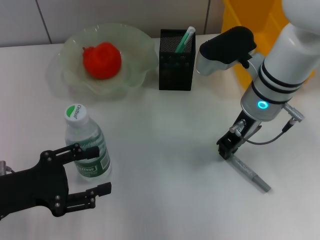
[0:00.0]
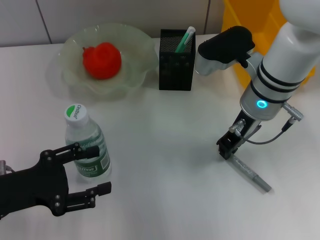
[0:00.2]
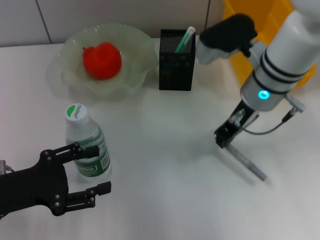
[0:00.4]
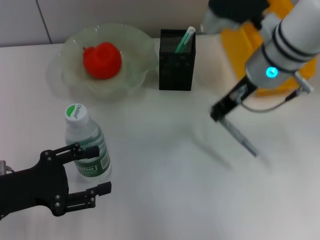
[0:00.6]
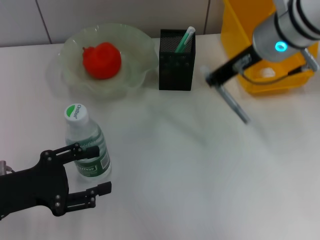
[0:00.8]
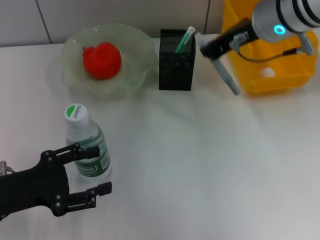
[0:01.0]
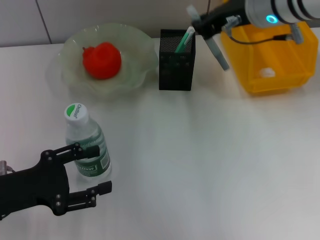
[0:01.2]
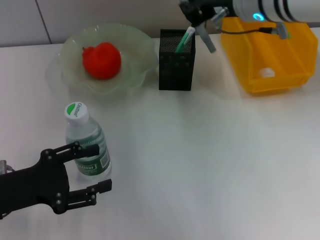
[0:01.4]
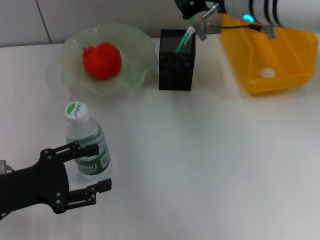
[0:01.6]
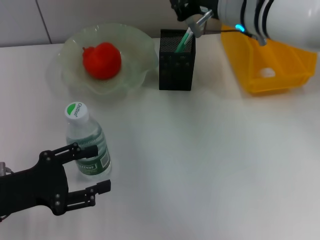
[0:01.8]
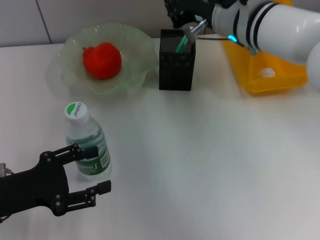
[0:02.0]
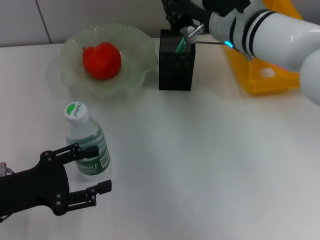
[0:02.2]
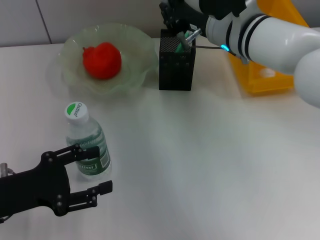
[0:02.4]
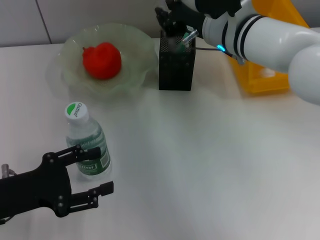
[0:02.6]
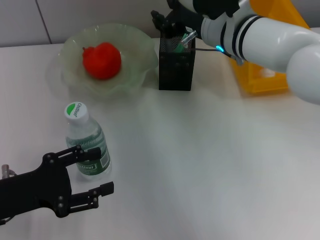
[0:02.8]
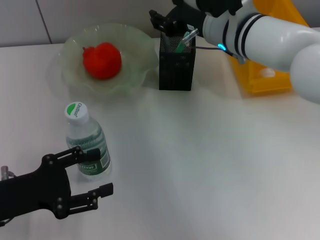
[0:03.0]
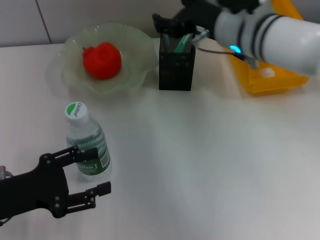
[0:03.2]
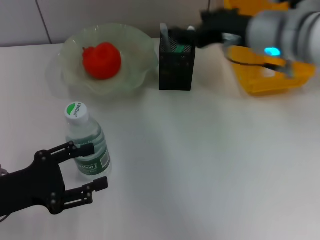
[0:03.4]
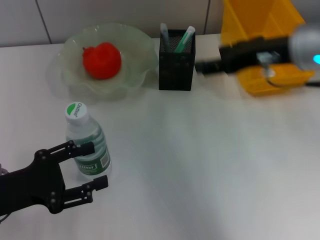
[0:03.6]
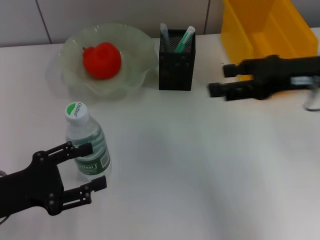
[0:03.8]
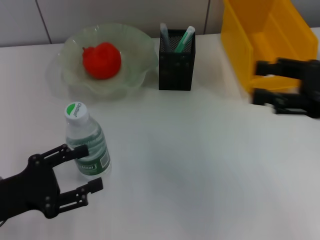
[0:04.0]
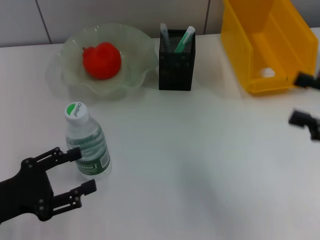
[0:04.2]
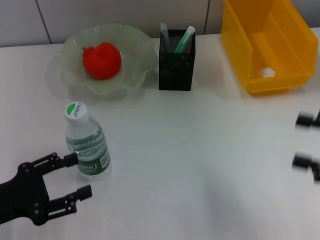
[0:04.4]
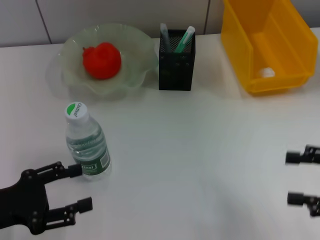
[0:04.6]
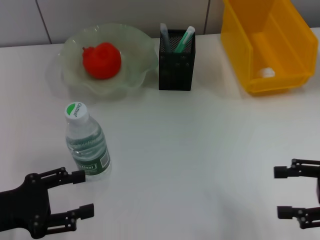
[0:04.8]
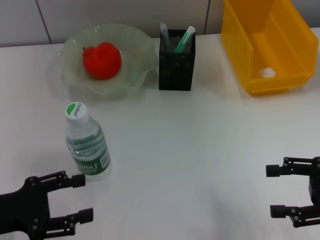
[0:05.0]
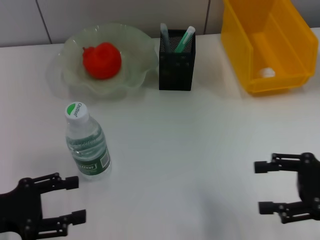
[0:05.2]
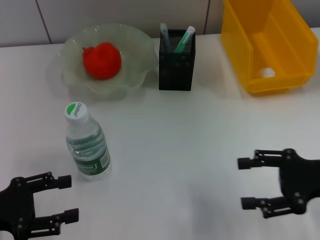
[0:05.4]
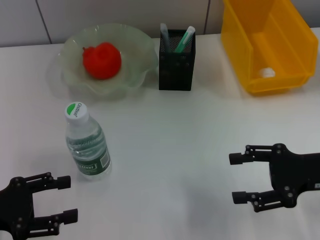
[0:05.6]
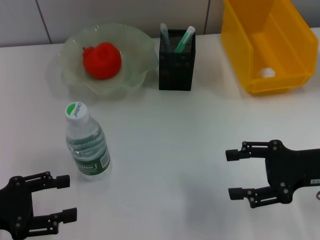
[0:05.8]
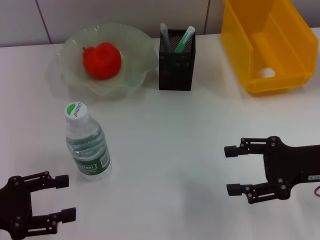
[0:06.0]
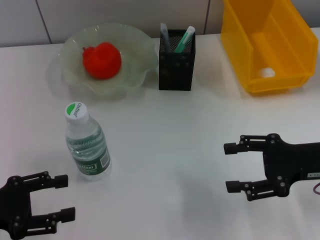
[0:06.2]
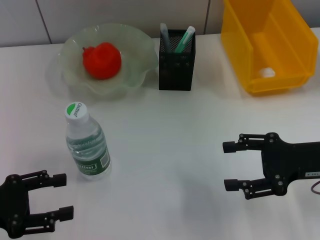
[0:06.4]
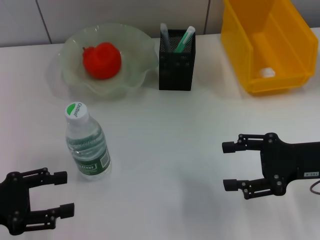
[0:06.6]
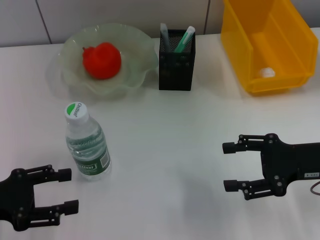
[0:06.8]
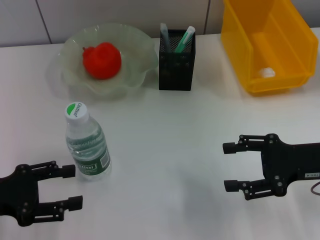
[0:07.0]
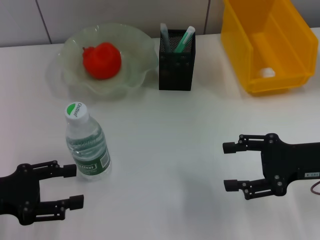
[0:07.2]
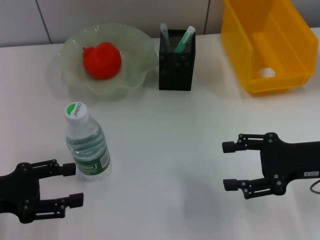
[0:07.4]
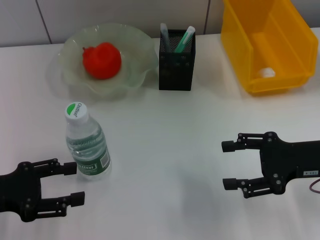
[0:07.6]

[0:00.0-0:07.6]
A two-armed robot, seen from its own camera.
Step, 0.4 to 3.4 s: Place the gray glue into the pen holder with the right hand.
0.0 to 1.6 s: The right gripper shifts approximately 10 cm upward.
1.6 to 3.0 s: The right gripper shifts approximately 5 cm downward, and opens its fingers.
3.0 to 4.6 s: The right gripper travels to the right and backward by some 30 cm, and opens up.
4.6 to 6.0 s: The right gripper moves to the left and forward, some 10 cm.
6.0 to 7.6 s: There are only small adjustments of the grippers.

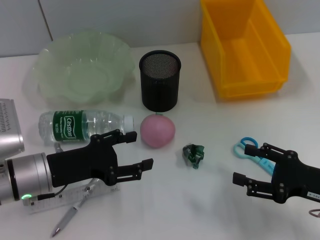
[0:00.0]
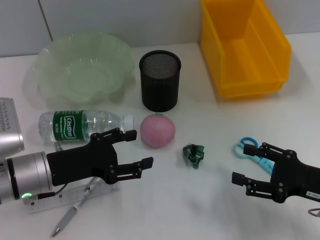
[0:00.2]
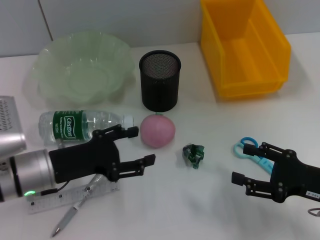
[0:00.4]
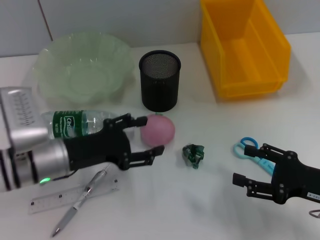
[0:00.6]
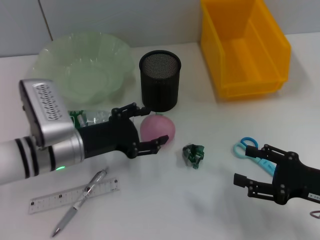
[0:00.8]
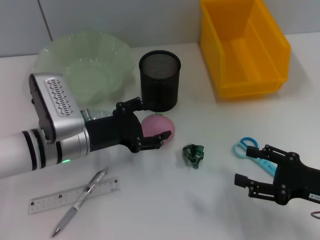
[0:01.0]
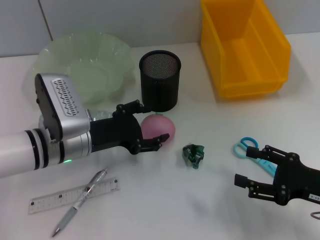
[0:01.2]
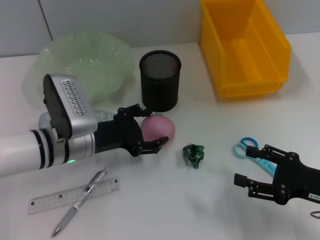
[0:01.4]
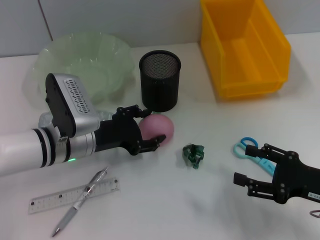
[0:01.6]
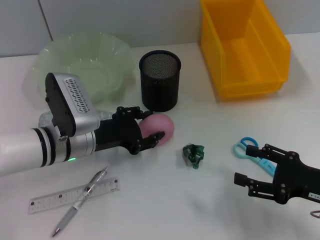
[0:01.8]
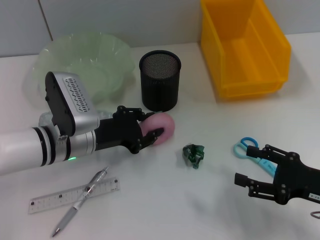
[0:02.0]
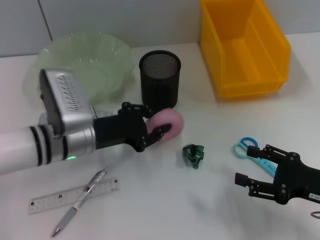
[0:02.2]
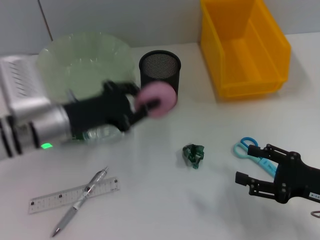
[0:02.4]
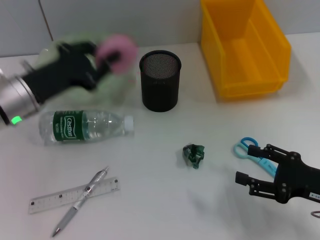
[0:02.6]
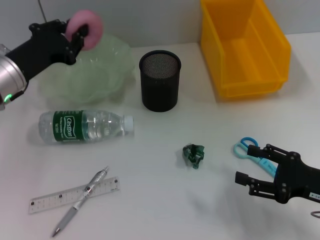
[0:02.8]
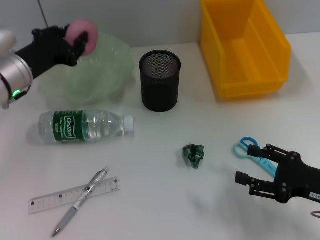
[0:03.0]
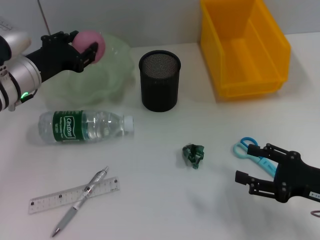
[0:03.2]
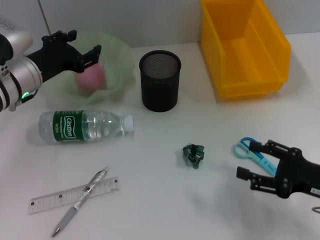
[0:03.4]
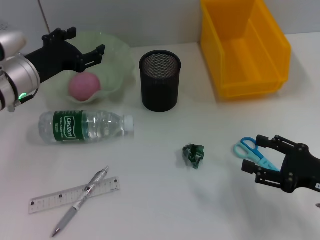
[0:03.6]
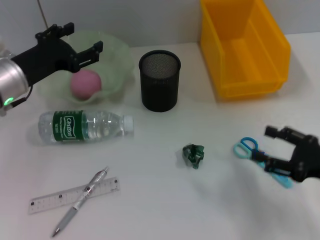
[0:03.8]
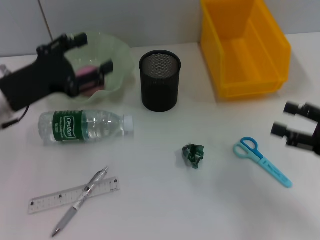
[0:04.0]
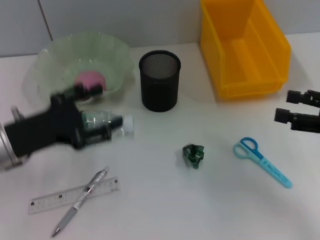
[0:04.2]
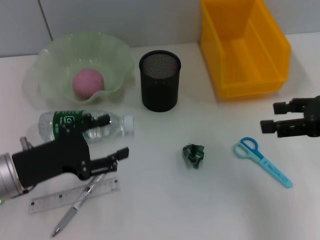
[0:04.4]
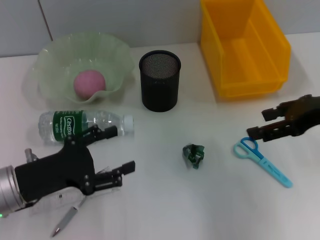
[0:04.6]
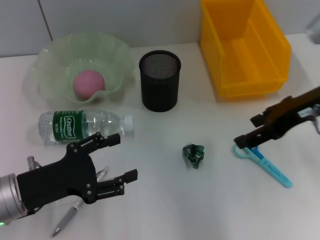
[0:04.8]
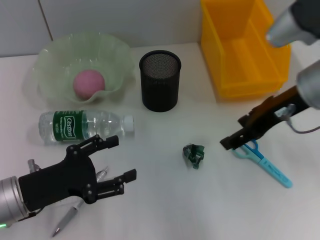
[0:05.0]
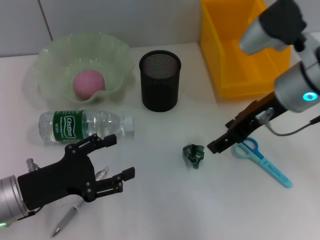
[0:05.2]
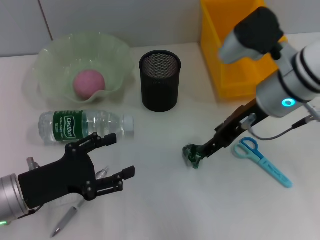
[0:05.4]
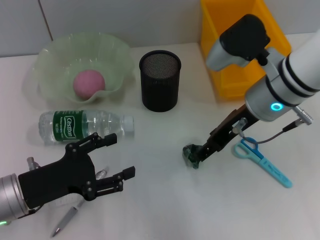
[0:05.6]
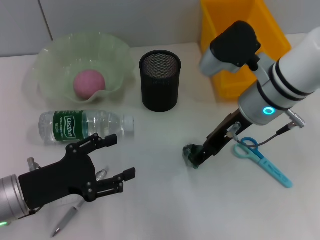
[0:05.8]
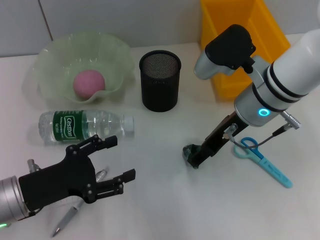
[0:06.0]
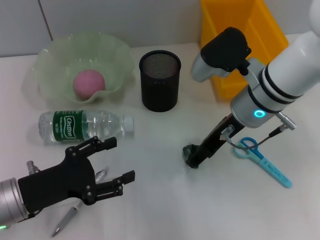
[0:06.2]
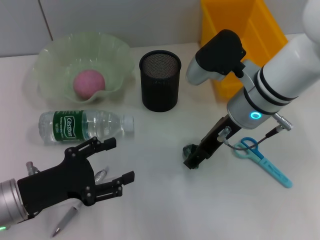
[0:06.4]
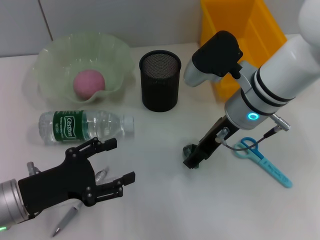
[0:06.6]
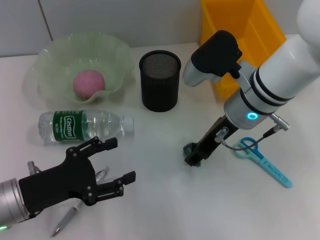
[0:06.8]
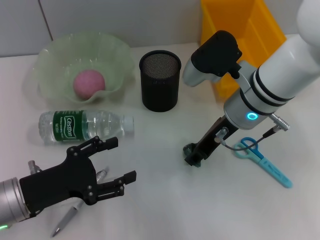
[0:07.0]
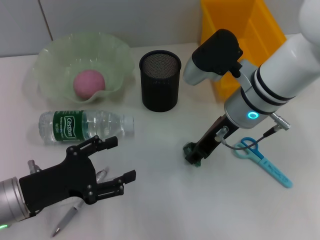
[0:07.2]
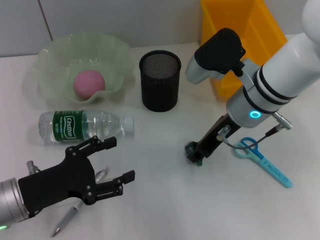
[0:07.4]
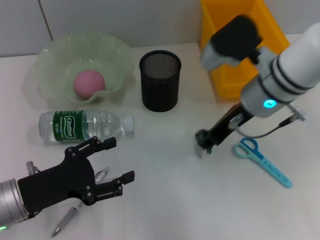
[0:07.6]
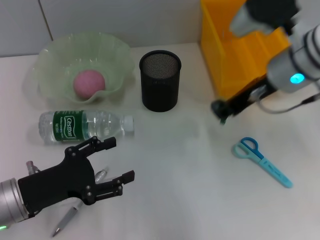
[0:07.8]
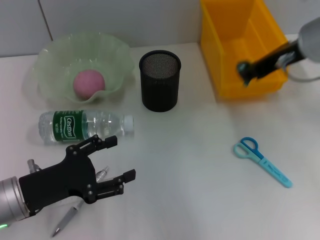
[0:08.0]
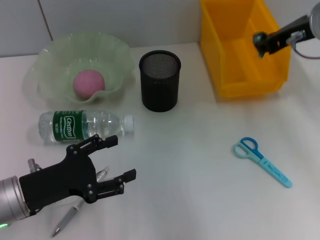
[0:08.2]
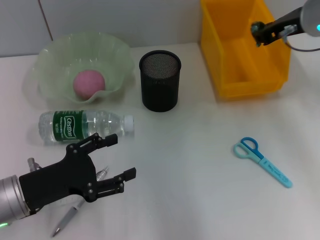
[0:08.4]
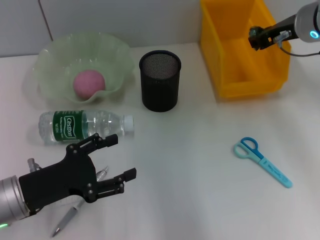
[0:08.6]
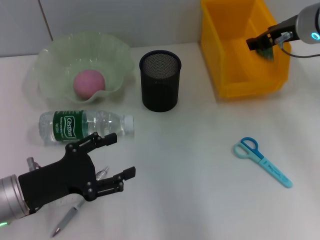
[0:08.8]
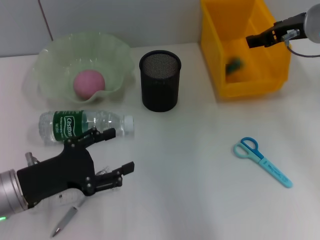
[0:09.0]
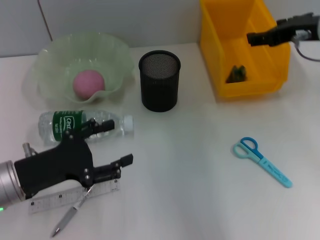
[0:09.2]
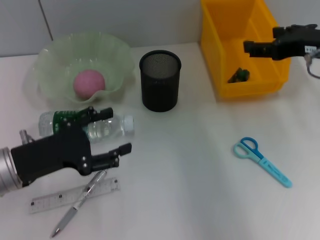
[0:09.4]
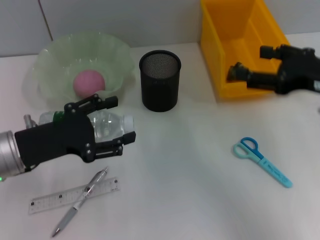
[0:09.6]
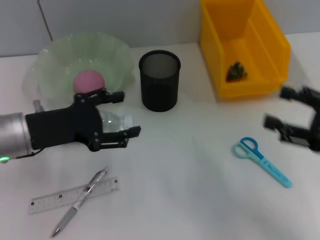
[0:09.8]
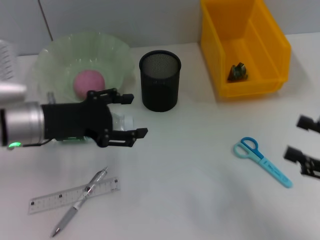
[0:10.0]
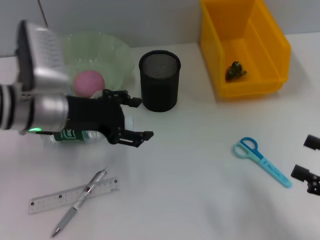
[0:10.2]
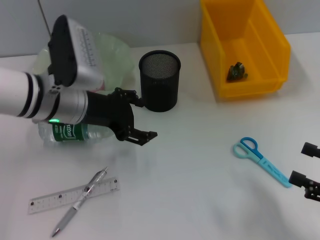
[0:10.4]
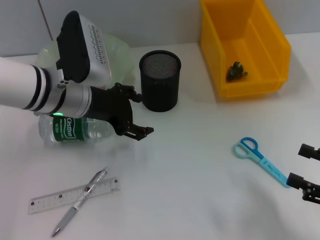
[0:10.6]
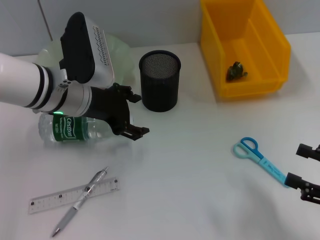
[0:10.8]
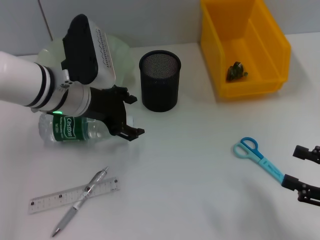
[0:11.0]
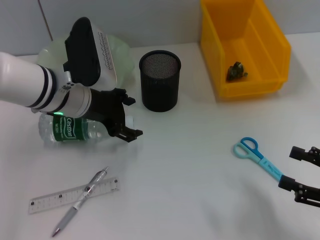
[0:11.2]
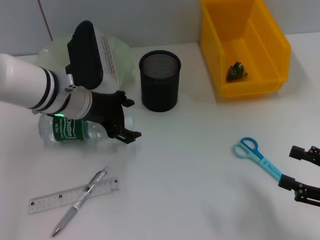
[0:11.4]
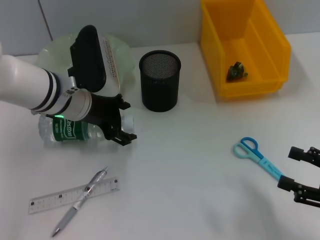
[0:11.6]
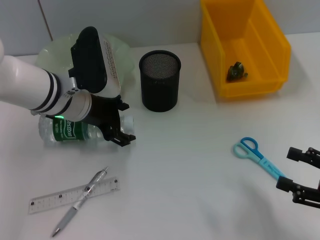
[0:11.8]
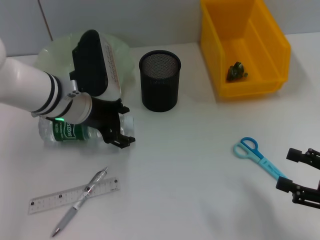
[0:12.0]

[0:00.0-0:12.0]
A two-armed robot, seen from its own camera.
Step, 0.0 to 1.8 s: Grab the peach with the left hand.
Step, 2.2 to 3.6 s: Place the peach into the fruit bowl with the left hand.
Step, 3.8 to 7.0 s: Grab the plastic with the right hand.
Step, 7.2 to 9.0 s: Place the plastic into the trash can with the right hand.
0.0 to 1.6 s: The left gripper travels forward and to the right by about 10 cm.
1.6 to 3.0 s: The left gripper heads to the left, upward and forward, covering about 10 cm, and closes.
3.0 to 4.4 s: The left gripper shifts some 10 cm backward, and opens up; the right gripper shifts some 15 cm upward and forward.
4.4 to 6.0 s: The right gripper is displaced to the left and forward by approximately 20 cm.
6.0 to 7.6 s: The right gripper closes its fingers.
7.6 to 9.0 s: The right gripper is displaced to the right by some 10 cm.
9.0 to 10.4 s: The right gripper is displaced backward, downward and to the right by some 30 cm. Meanwhile the left gripper shifts roughly 15 cm forward, to the right and upward.
10.4 to 12.0 s: The grippers stay close to where they were, moving slightly.

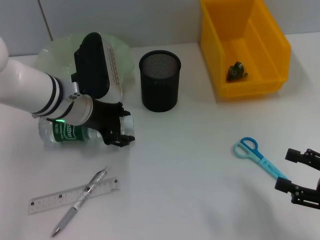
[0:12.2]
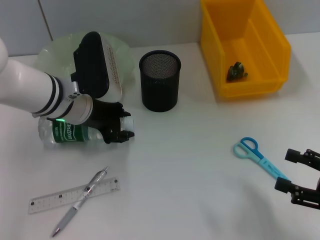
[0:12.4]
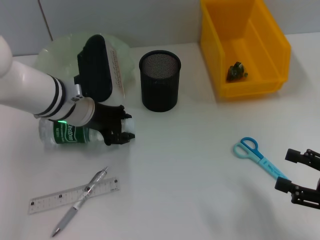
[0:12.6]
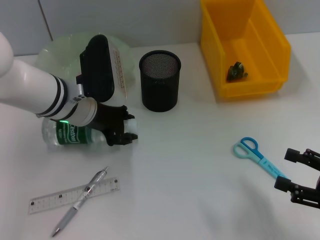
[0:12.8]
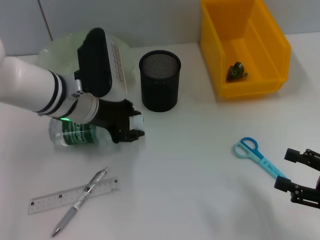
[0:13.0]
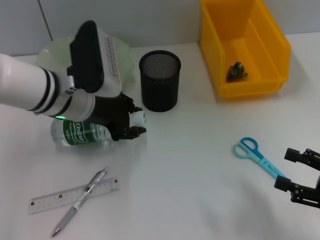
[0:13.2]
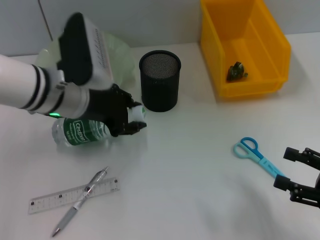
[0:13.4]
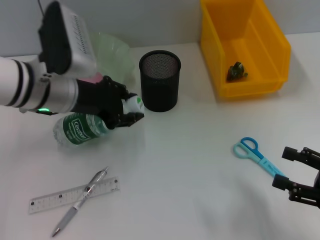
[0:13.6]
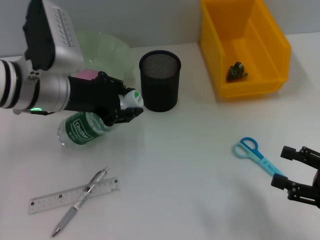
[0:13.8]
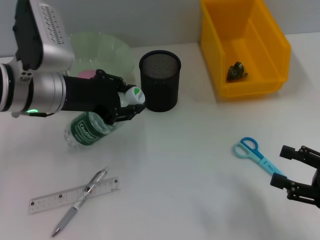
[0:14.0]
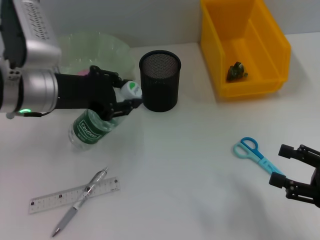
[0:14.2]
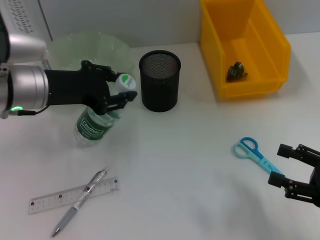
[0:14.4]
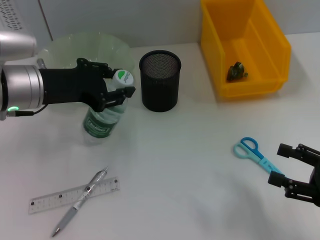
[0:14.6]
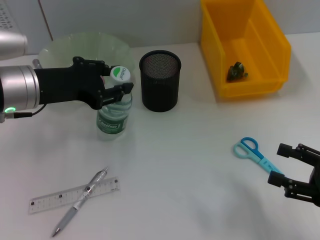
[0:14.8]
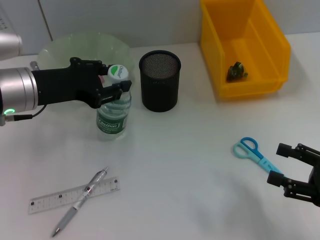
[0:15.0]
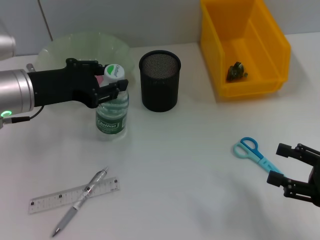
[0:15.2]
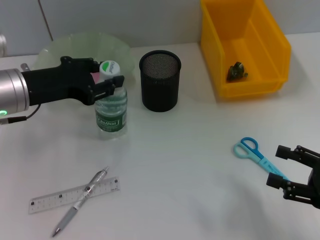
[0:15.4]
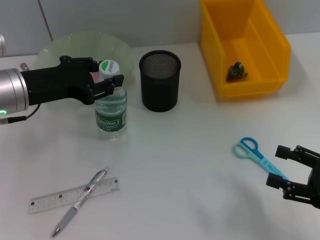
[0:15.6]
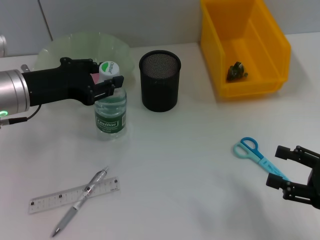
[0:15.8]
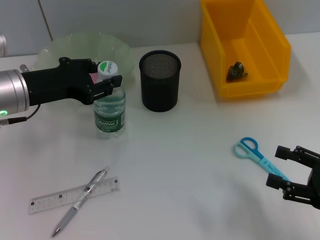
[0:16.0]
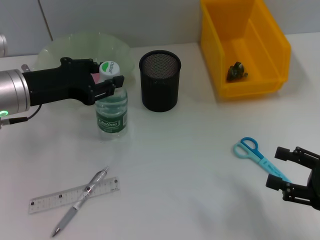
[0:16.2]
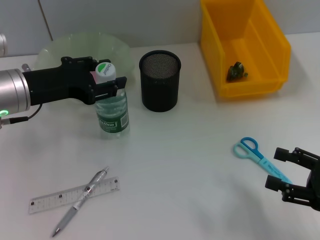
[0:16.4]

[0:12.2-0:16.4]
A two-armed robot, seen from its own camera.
12.2 to 13.6 s: The left gripper closes up.
13.6 to 15.0 s: The left gripper moves to the left, approximately 5 cm.
15.0 to 16.4 s: The grippers make only small movements.
